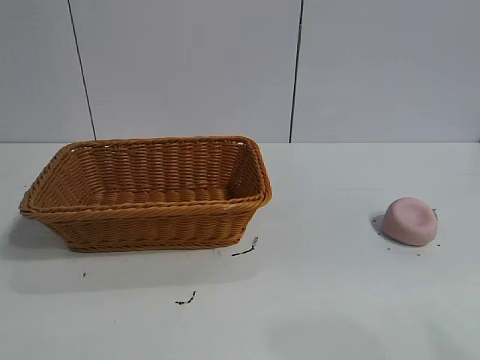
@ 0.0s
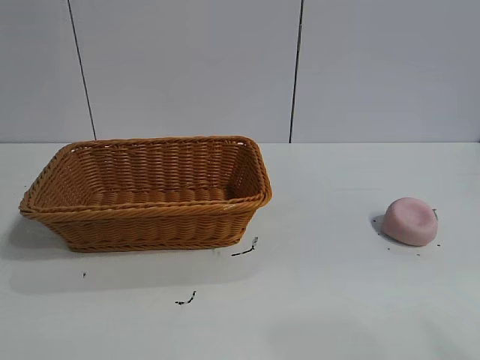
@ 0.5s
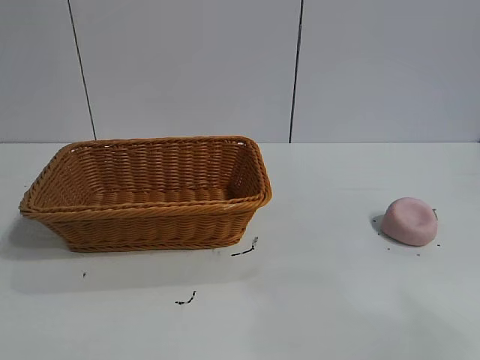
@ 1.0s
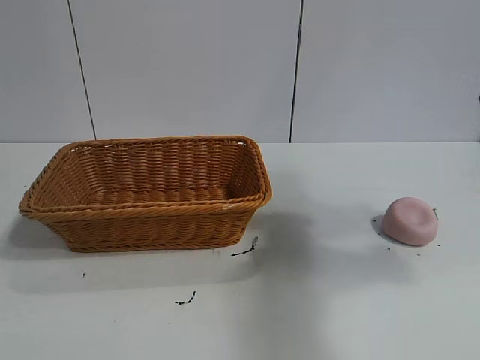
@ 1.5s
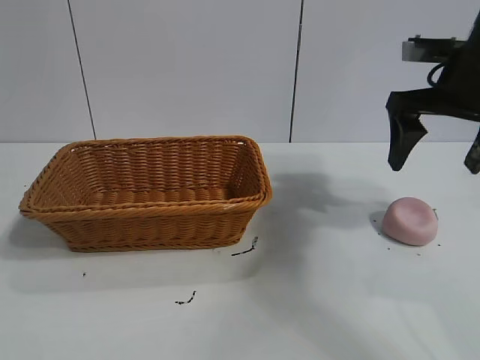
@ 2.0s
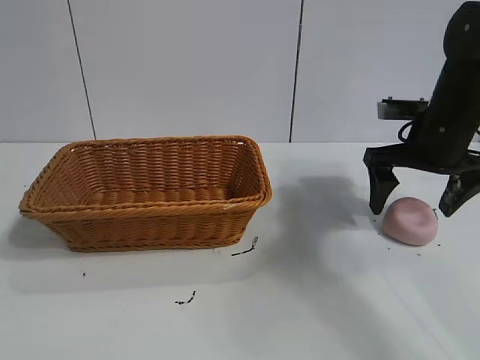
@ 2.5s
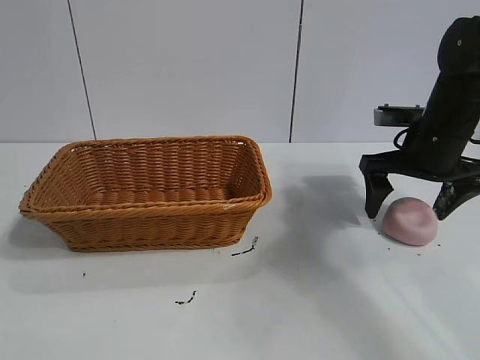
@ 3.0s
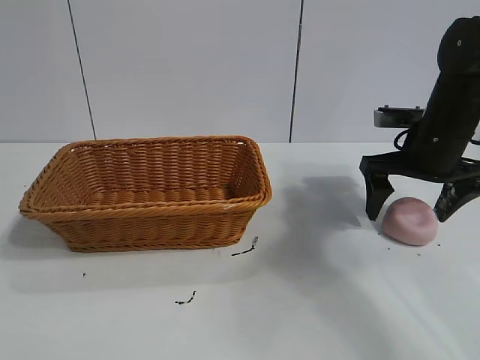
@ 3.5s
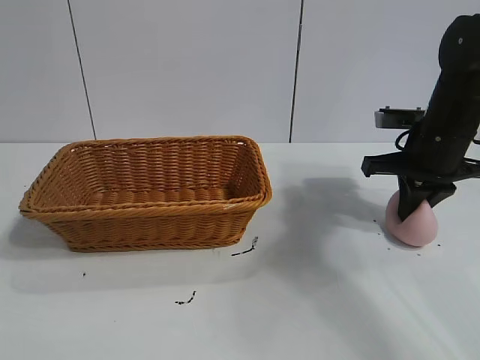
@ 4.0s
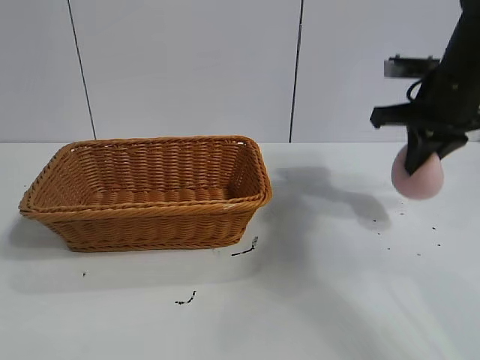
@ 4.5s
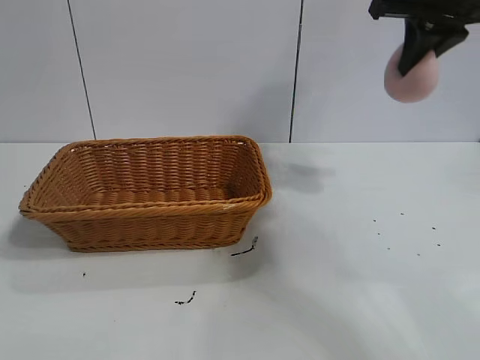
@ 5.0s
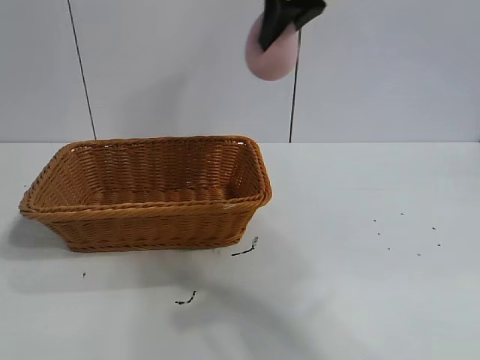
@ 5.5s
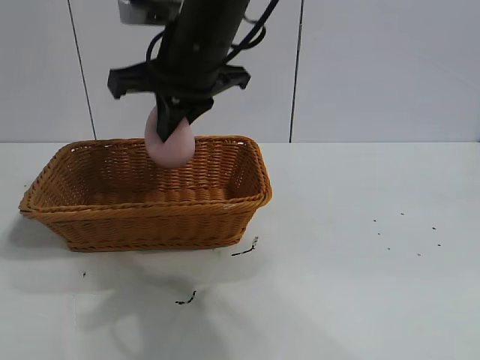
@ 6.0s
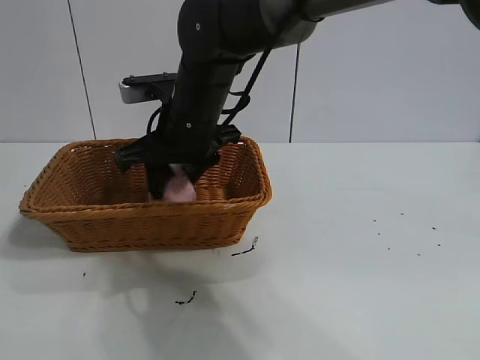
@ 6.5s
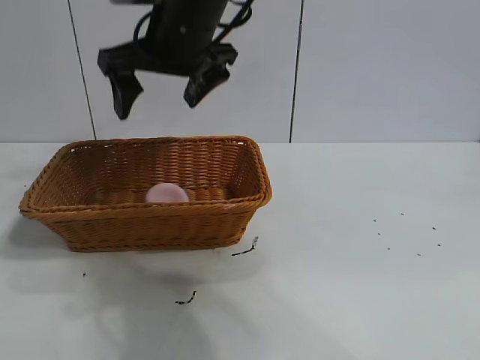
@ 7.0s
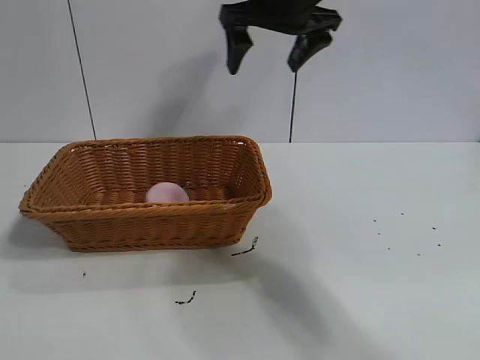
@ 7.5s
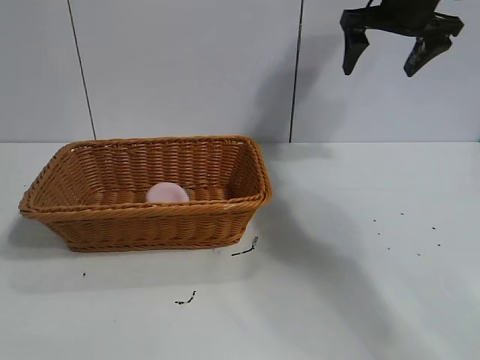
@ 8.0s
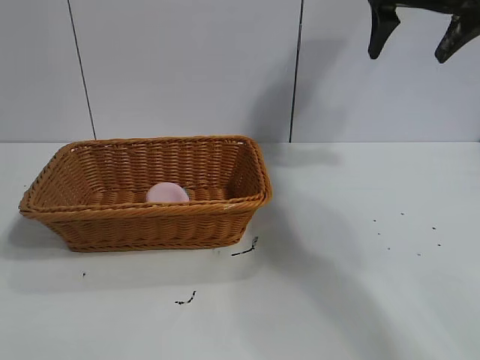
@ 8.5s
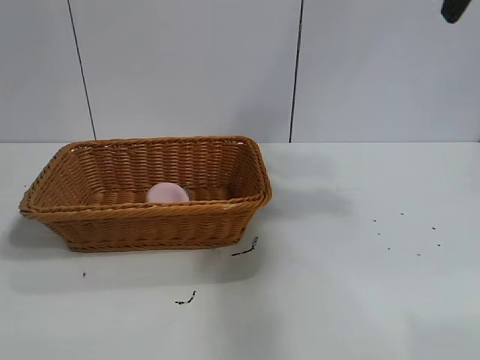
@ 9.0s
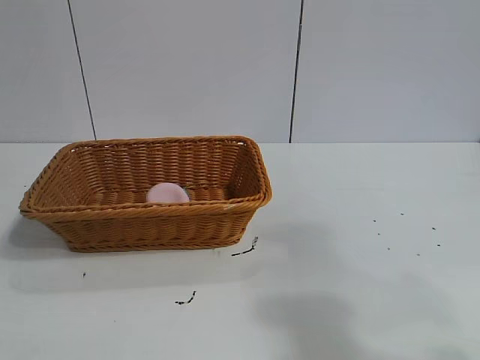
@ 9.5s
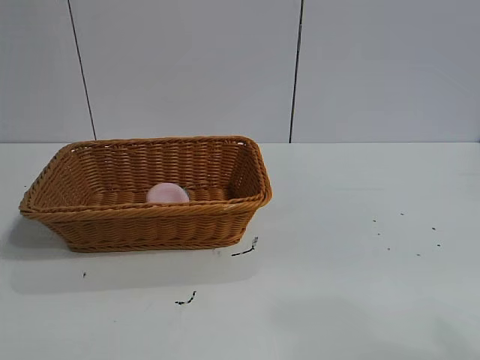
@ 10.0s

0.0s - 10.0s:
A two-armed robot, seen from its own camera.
Task of the whole recording: pick up the peach and put it into the basket.
Step, 0.0s - 4.0s: Grasp the peach with right gripper.
Step, 4.5s - 6.5s: Place the peach in the basket with right gripper.

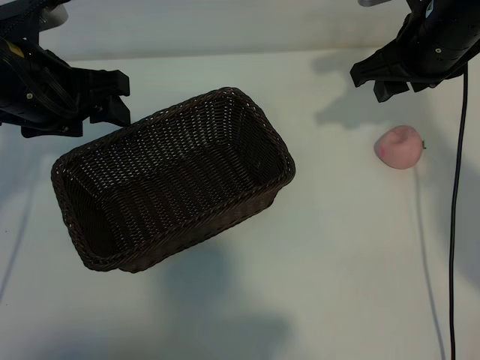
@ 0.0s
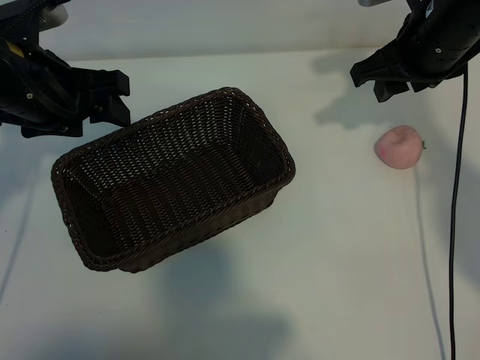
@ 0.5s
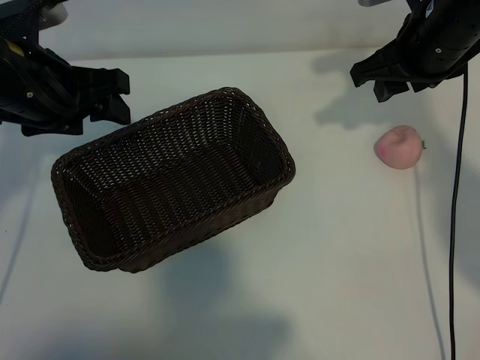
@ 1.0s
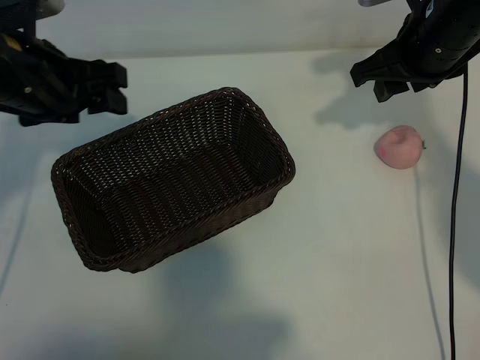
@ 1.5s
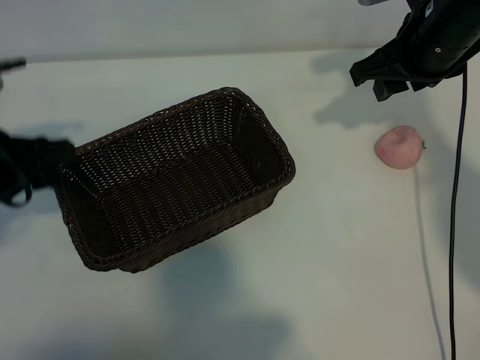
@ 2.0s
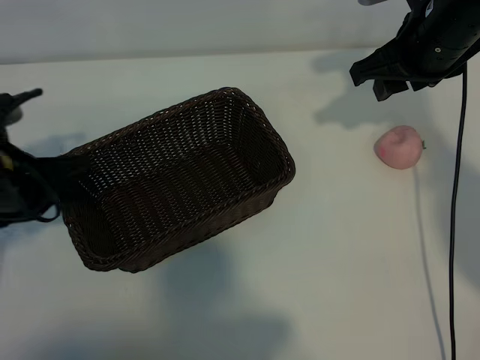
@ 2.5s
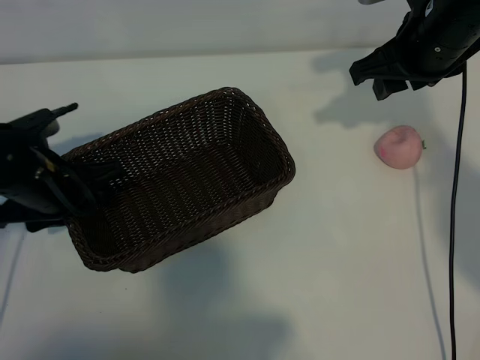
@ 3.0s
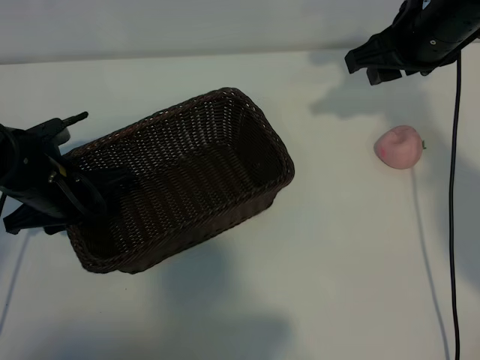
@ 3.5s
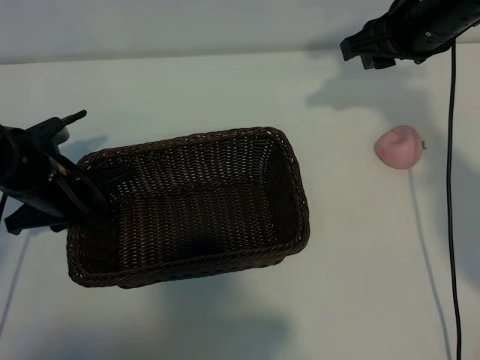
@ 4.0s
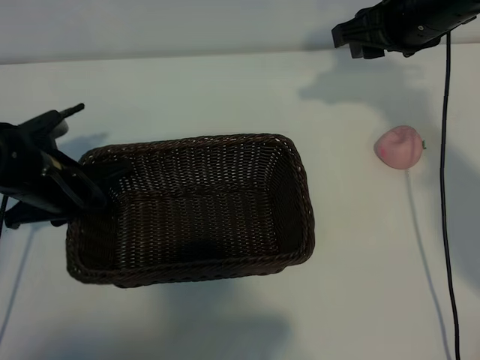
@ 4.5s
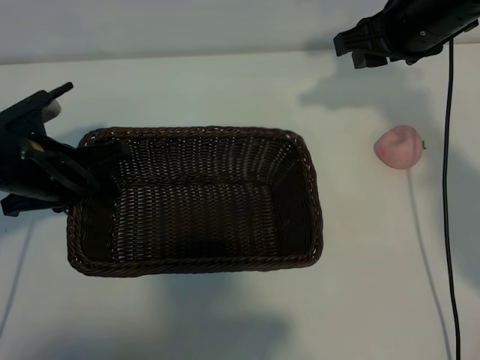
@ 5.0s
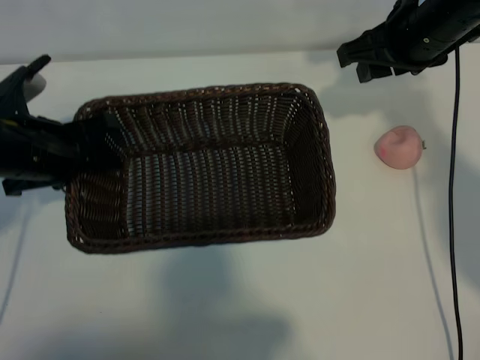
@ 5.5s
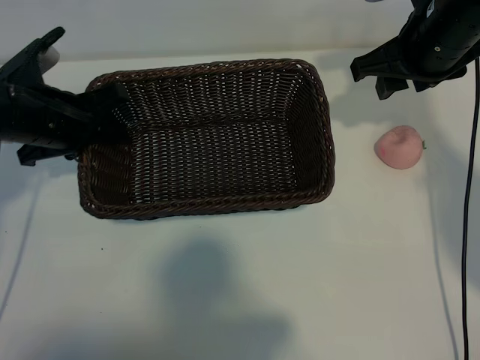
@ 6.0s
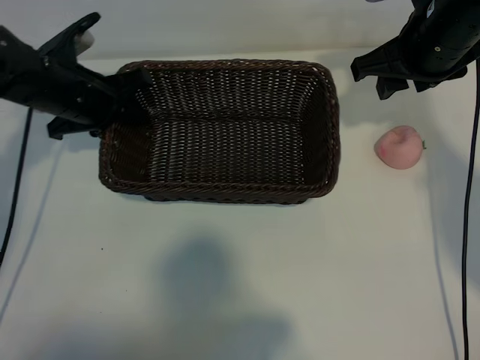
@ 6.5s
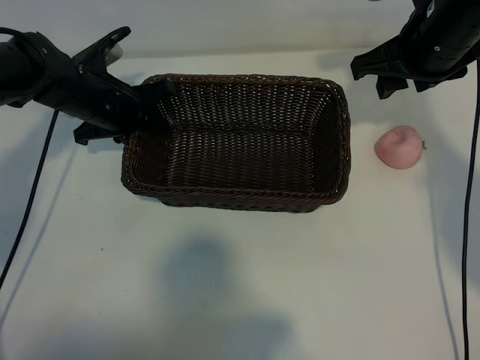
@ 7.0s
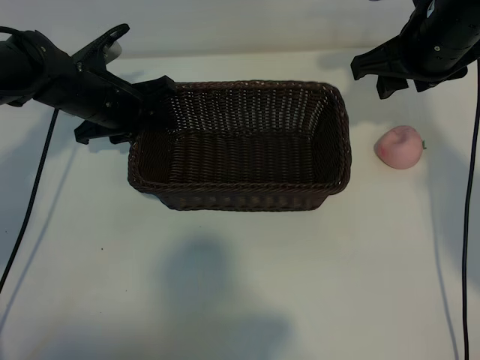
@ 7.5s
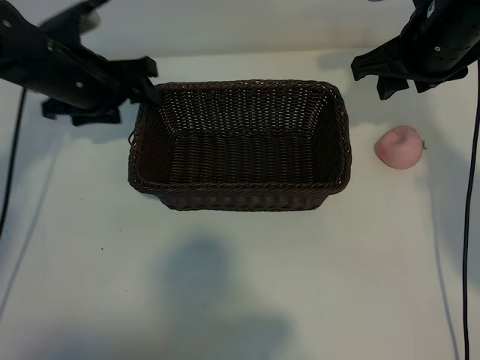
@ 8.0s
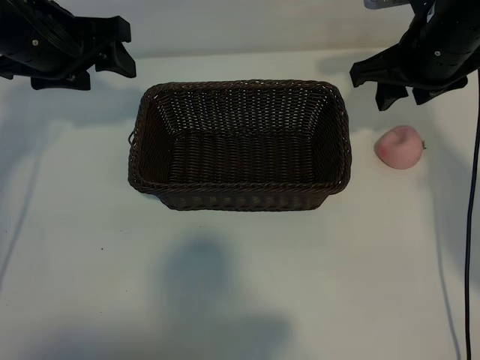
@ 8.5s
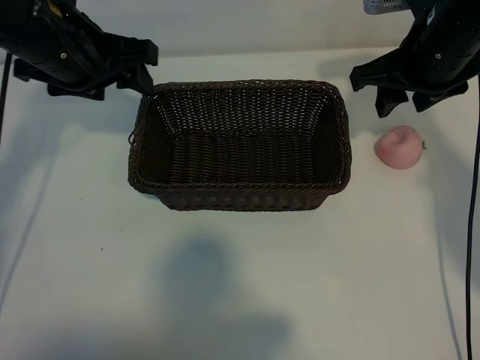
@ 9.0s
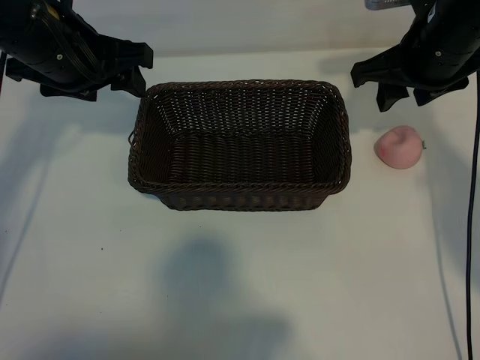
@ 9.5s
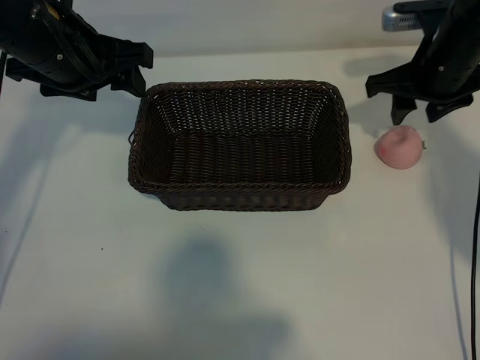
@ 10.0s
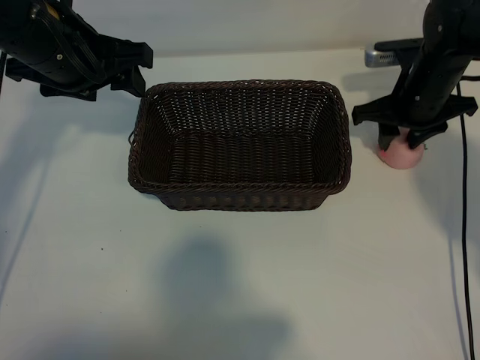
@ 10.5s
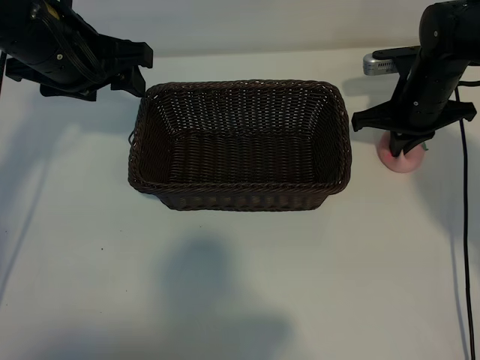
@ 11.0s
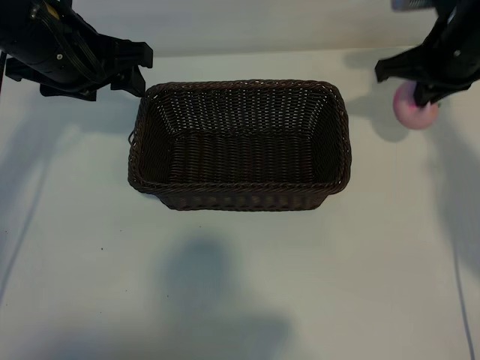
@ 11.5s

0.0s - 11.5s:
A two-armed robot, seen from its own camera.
Task of the whole recording: pick up the peach and put it into the basket.
Step, 1.5s - 3.5s: Grasp the basket with left gripper.
Step, 4.0s - 7.5s: Place the basket in the center of view with left gripper.
Step, 8.0s - 10.5s: Grasp the peach with right gripper.

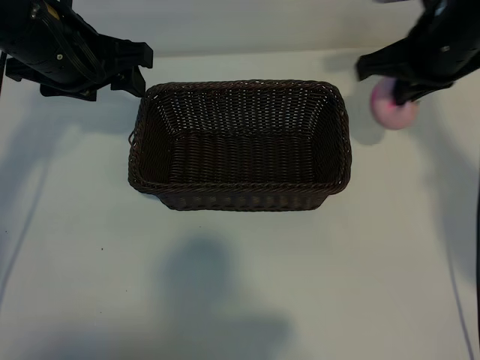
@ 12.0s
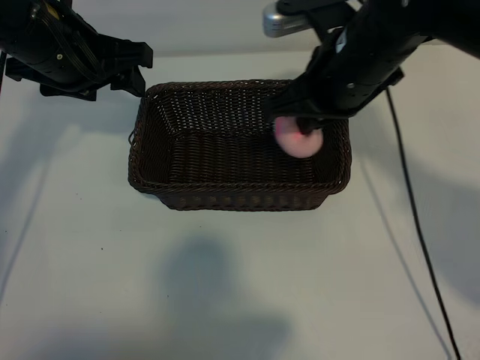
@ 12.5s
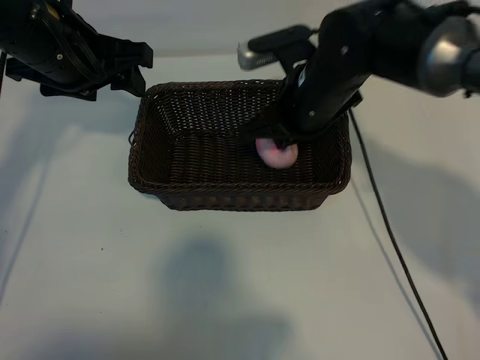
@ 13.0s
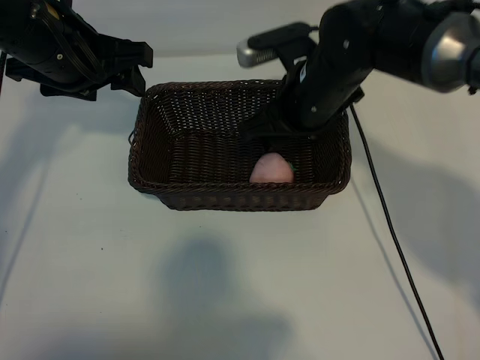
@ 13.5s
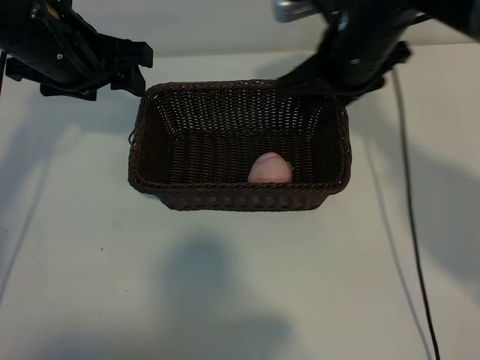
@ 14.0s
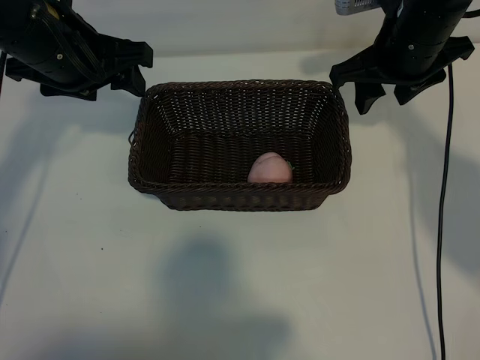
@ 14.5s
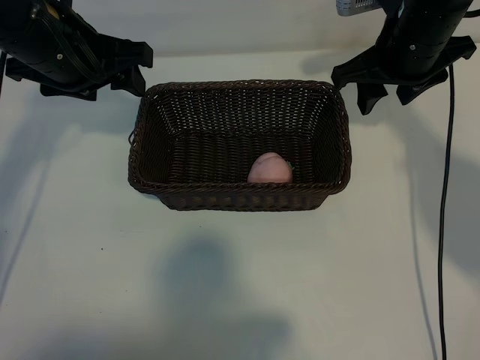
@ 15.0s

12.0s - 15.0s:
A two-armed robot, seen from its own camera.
Task of the whole recording: pick up the peach and put it into the basket.
Step, 12.0s - 13.5s: Place the peach in the basket with right gripper.

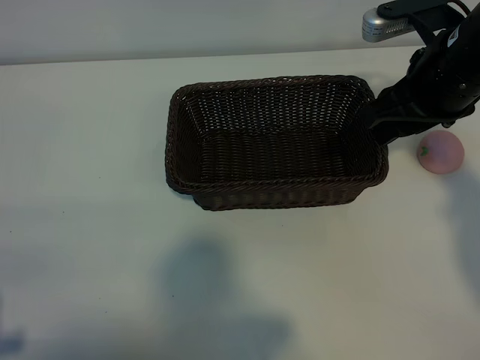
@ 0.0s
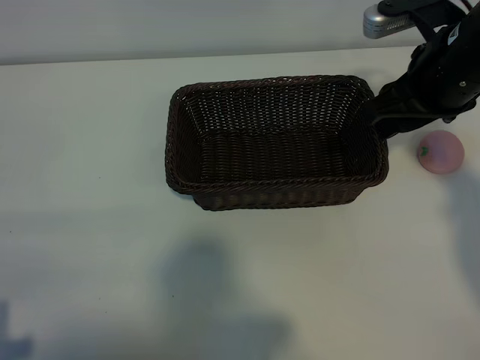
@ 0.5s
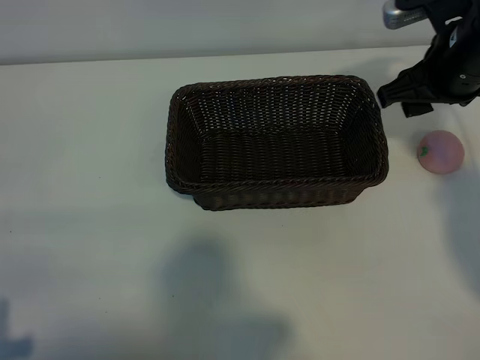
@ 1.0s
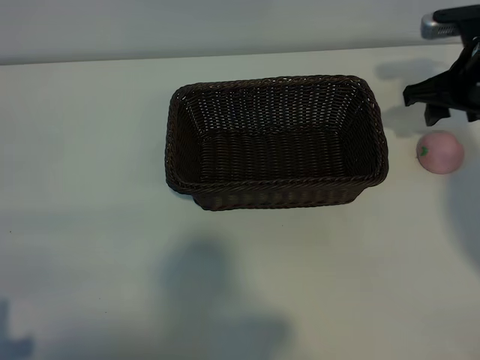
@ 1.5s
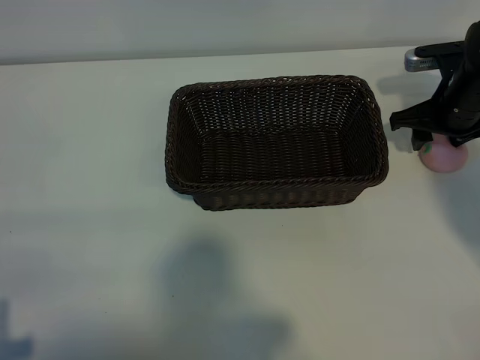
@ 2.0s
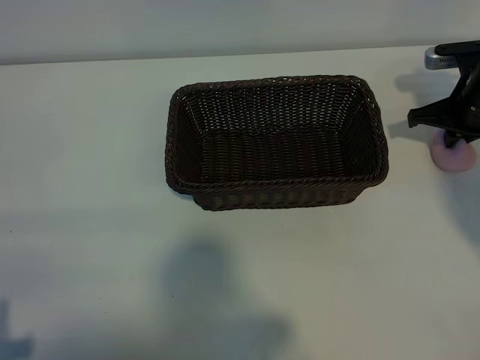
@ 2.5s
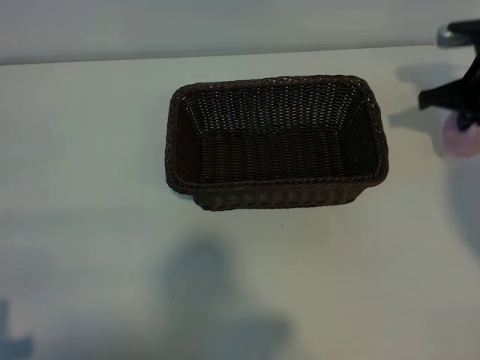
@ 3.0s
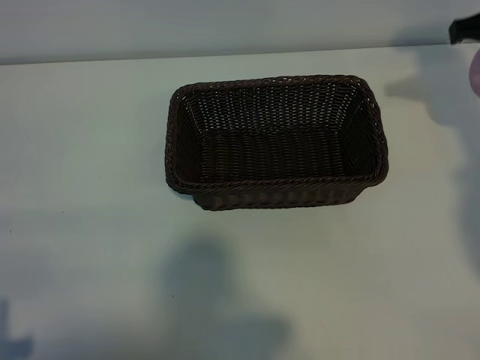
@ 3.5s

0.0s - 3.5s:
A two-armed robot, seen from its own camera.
Task of the whole recording: pick up the peach and put it into the basket.
Step, 0.0s - 2.5s: Grasp the peach with right gripper.
